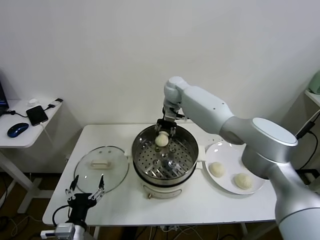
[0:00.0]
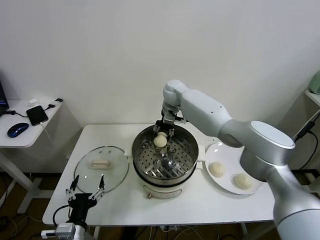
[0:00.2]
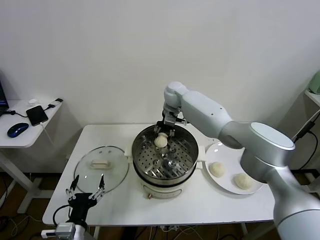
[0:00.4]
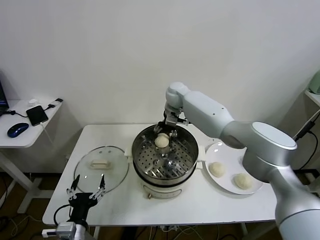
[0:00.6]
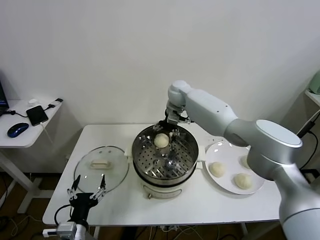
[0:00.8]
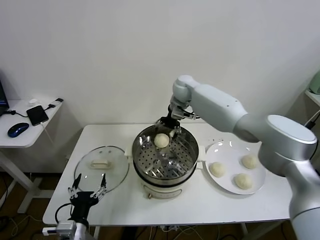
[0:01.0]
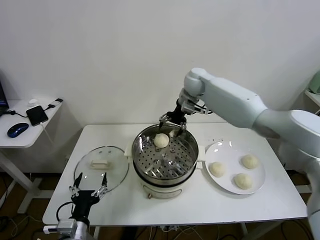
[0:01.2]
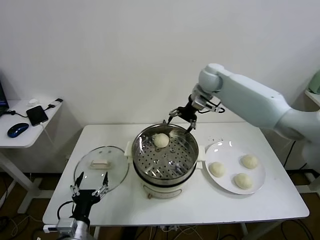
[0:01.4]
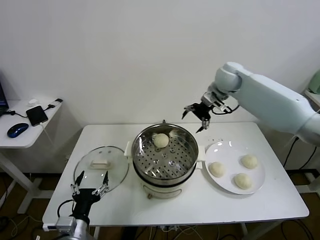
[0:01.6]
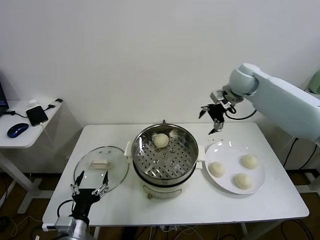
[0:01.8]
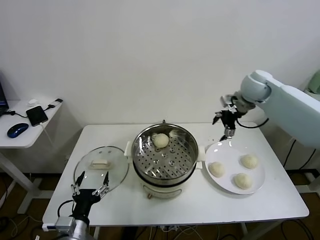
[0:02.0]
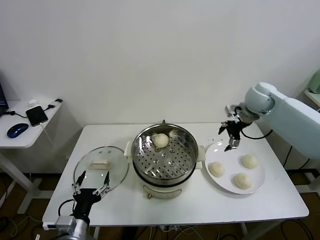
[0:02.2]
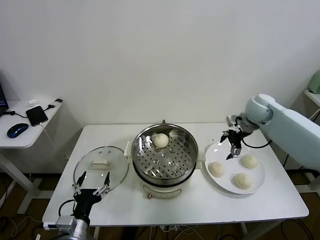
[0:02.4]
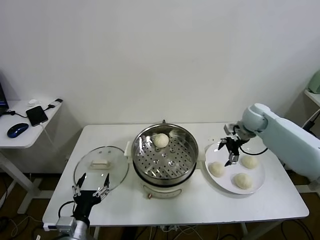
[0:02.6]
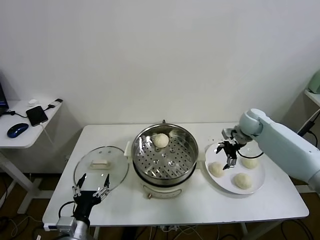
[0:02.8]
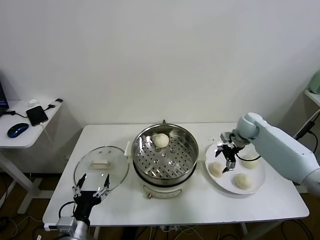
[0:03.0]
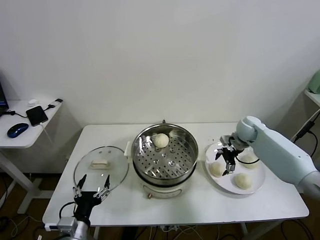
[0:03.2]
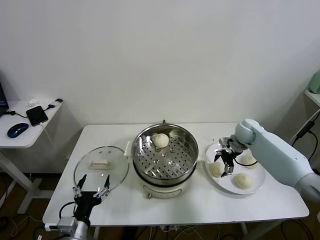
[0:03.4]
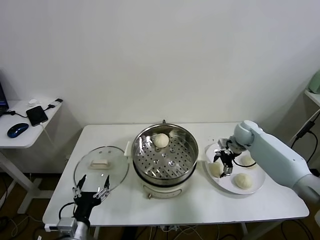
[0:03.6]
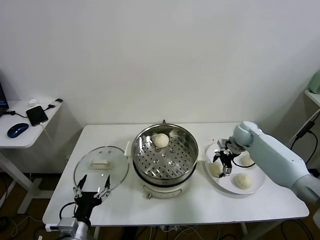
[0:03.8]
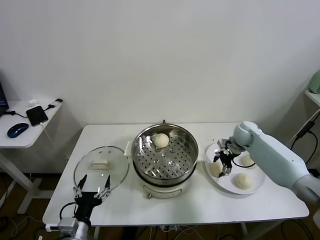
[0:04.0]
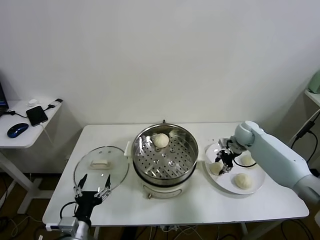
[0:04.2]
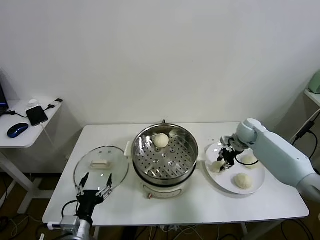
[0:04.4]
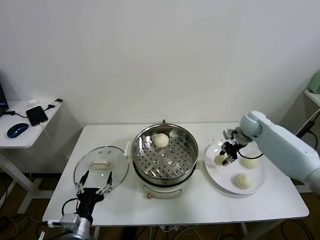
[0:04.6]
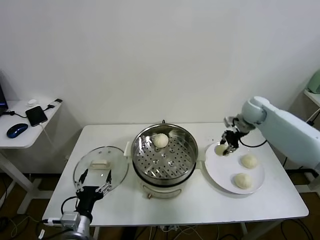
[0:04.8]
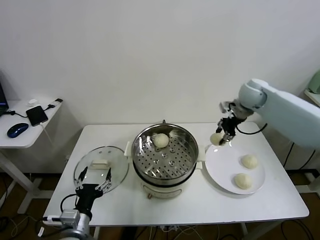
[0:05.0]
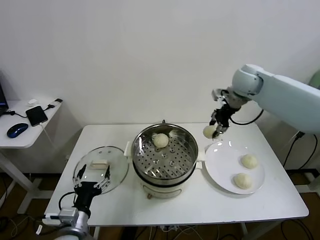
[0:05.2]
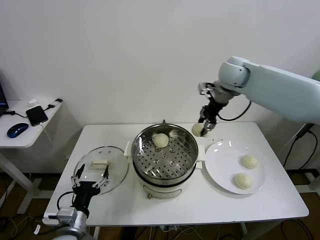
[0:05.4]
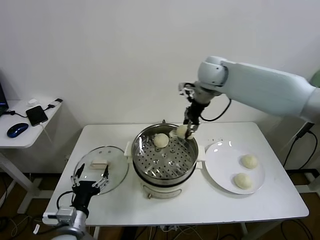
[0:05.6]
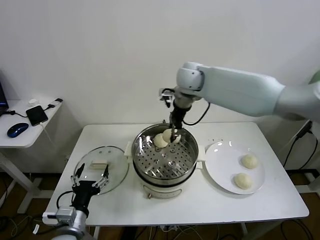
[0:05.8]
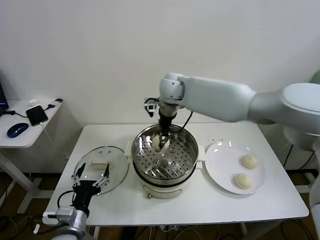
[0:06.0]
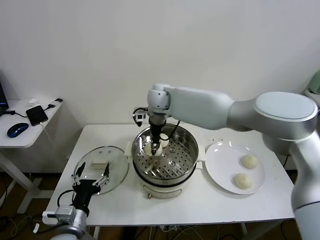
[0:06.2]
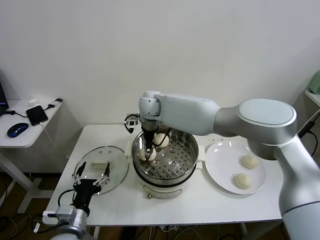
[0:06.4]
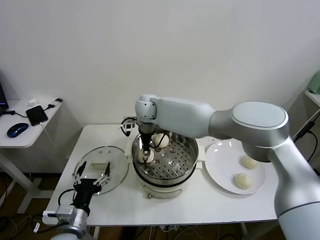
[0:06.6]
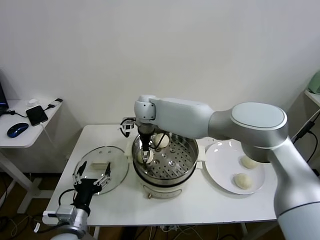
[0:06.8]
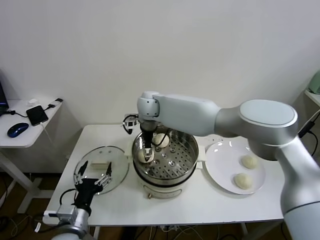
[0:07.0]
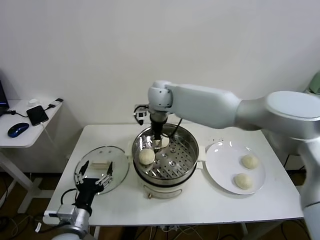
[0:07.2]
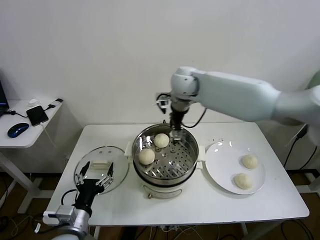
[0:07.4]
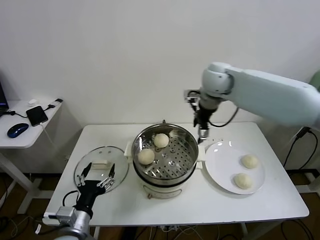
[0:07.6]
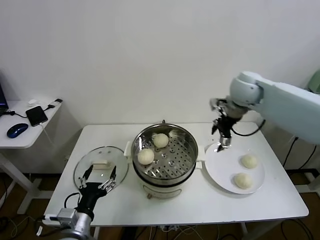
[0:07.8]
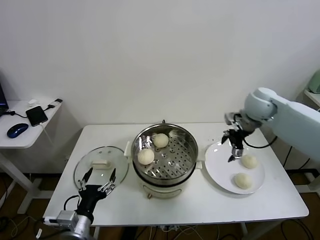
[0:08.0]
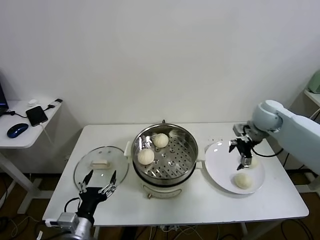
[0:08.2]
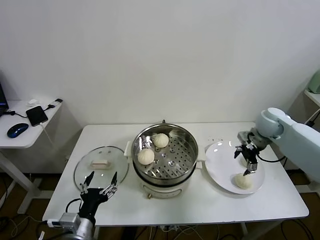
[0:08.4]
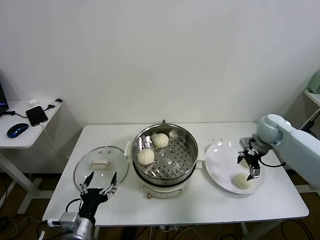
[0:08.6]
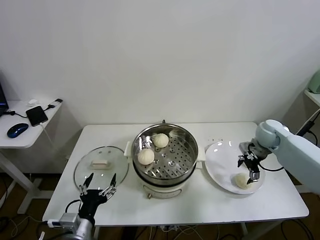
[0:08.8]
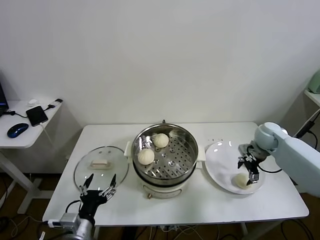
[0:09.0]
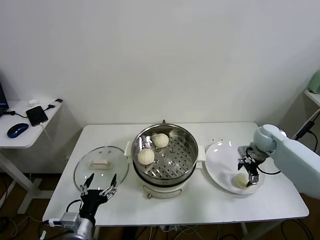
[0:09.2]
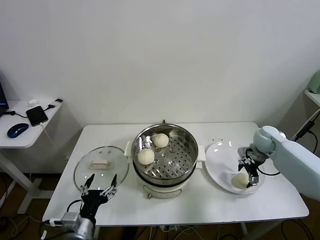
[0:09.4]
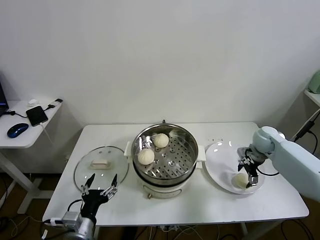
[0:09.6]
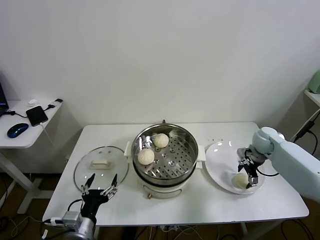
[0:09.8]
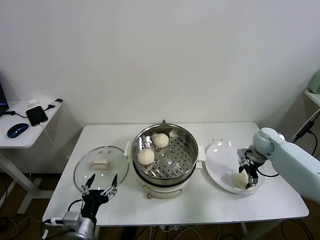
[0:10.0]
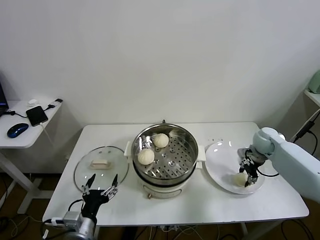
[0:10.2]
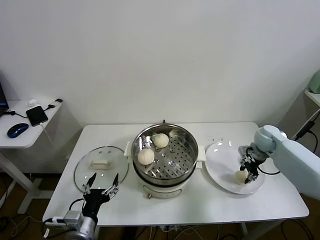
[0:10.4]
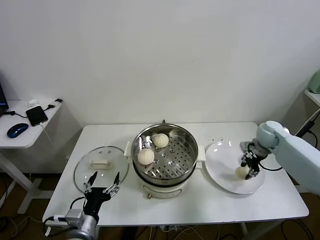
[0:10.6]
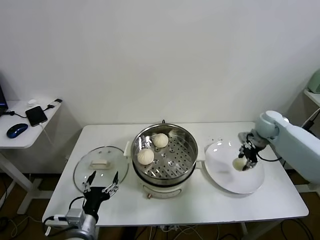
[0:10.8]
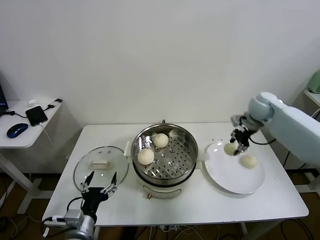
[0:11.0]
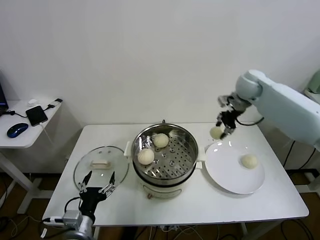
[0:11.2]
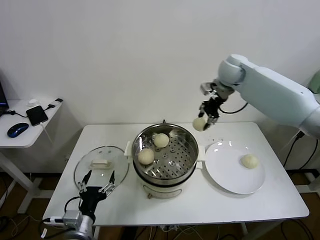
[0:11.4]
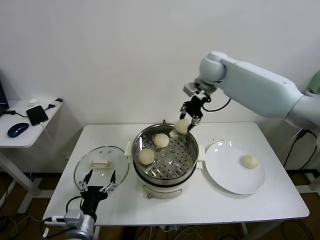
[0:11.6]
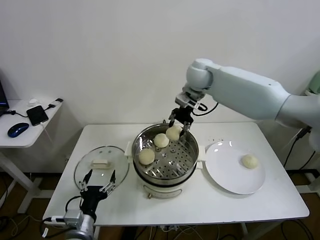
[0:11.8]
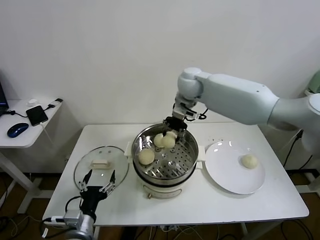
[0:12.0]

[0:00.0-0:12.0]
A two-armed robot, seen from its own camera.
Task of the whole recording: take steamed baozi put them in steamer.
Step, 0:01.0 to 0:04.0: Grasp the baozi in the plate with right gripper.
Step, 0:04.2 to 0:06.8: Place the baozi on the steamer with right gripper.
Step, 0:07.2 to 0:10.0: Grasp the baozi in the plate with right gripper.
0:00.0 to 0:01.6: The right gripper travels to the right and upward by approximately 20 cm, and opens its fingers.
0:01.6 to 0:03.0: The right gripper is displaced downward and to the right by roughly 20 cm.
0:03.0 to 0:04.4: The right gripper closes.
0:04.4 to 0:06.0: The right gripper moves to the left and upward, approximately 40 cm.
0:06.0 to 0:07.6: The right gripper moves to the right, roughly 15 cm, and opens its fingers.
0:07.6 to 0:09.0: The right gripper moves downward and to the right, roughly 30 cm.
0:09.0 to 0:10.4: The right gripper closes up.
0:10.4 to 0:12.0: The right gripper moves to the left and upward, roughly 35 cm.

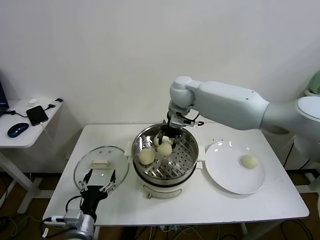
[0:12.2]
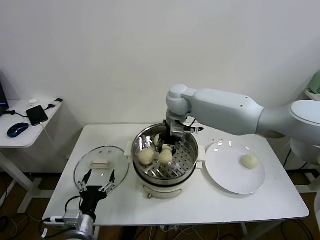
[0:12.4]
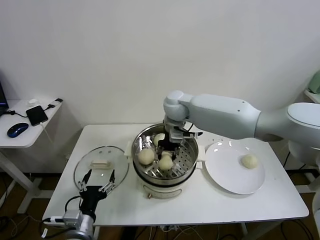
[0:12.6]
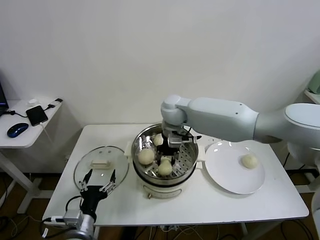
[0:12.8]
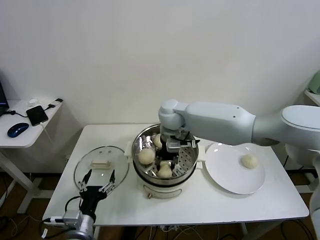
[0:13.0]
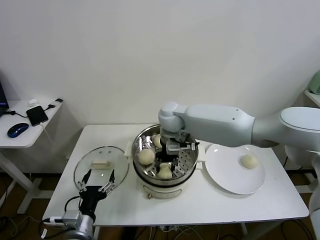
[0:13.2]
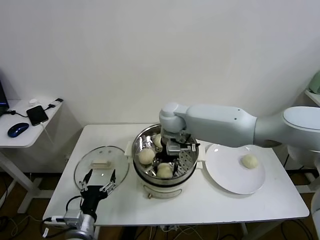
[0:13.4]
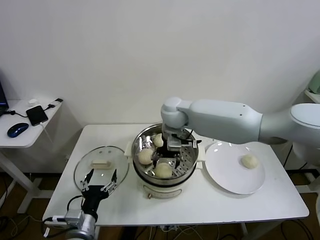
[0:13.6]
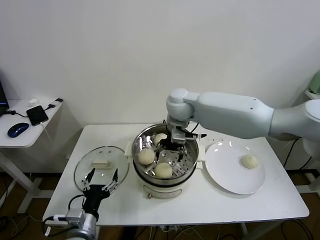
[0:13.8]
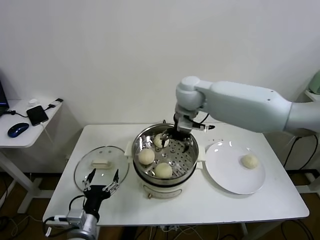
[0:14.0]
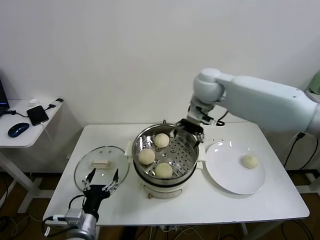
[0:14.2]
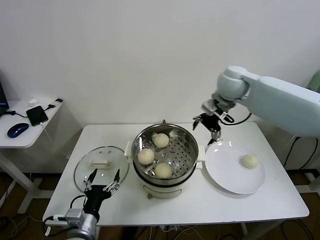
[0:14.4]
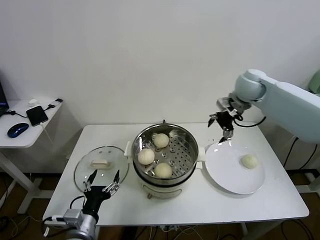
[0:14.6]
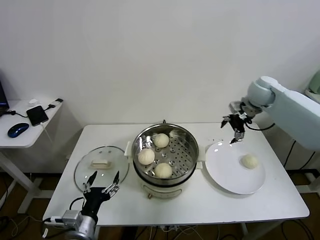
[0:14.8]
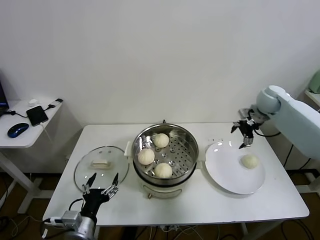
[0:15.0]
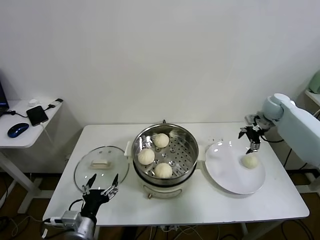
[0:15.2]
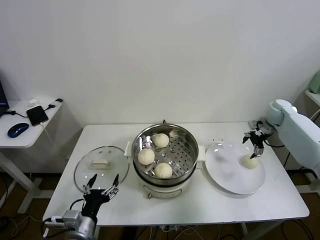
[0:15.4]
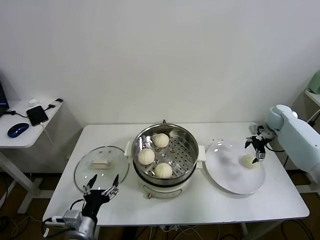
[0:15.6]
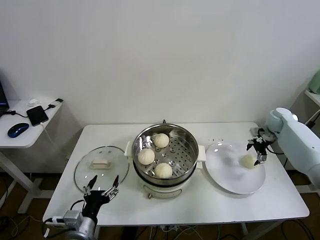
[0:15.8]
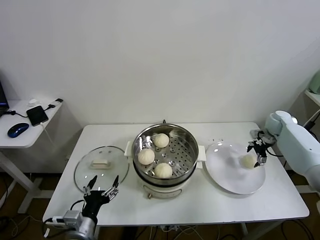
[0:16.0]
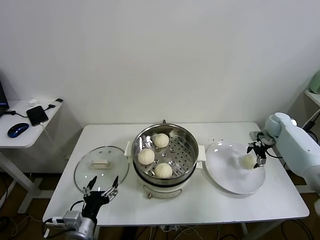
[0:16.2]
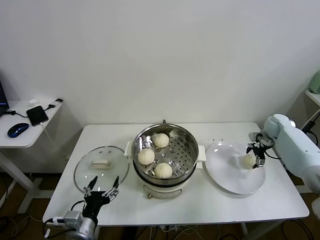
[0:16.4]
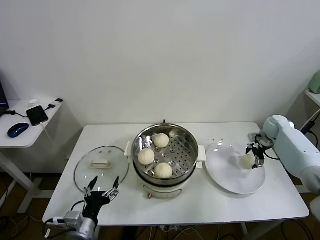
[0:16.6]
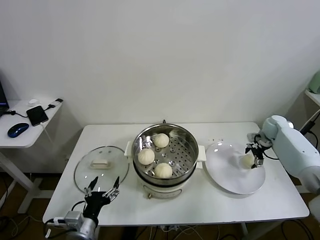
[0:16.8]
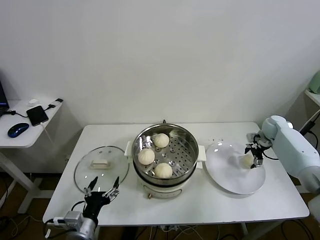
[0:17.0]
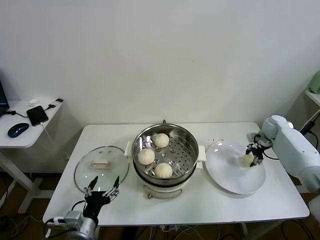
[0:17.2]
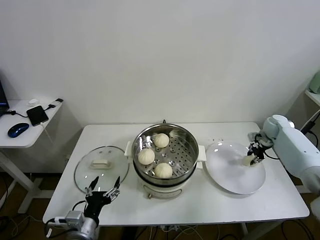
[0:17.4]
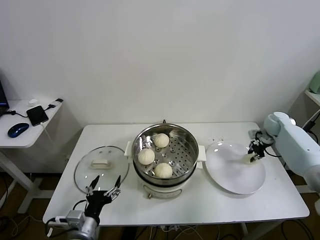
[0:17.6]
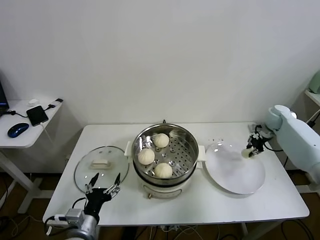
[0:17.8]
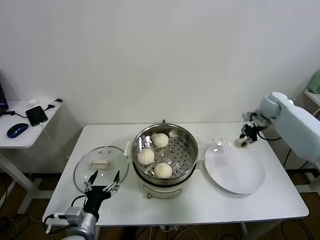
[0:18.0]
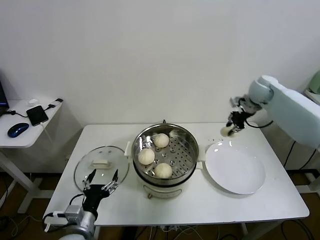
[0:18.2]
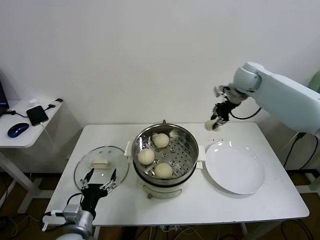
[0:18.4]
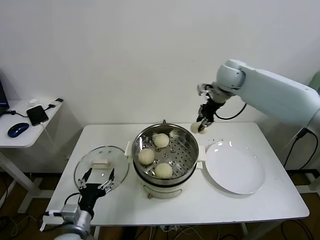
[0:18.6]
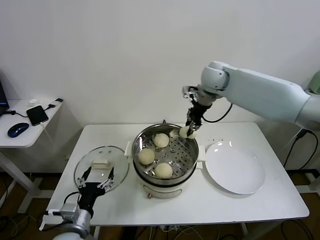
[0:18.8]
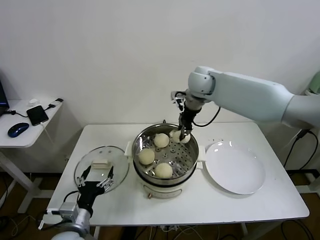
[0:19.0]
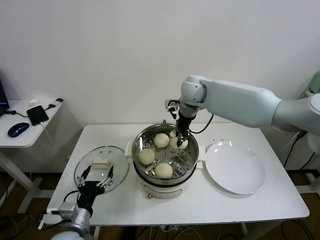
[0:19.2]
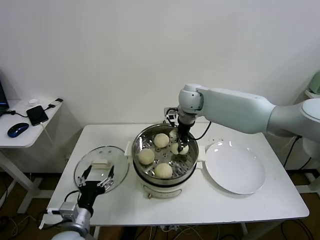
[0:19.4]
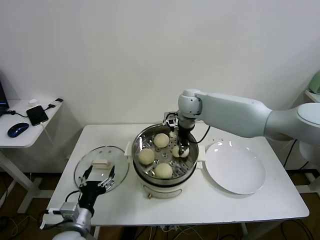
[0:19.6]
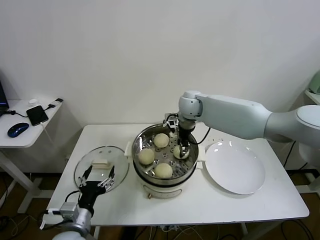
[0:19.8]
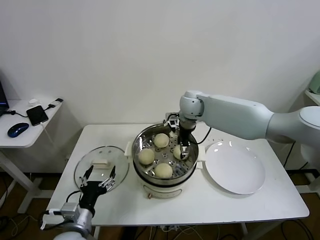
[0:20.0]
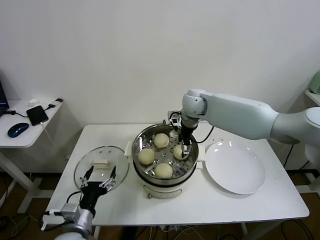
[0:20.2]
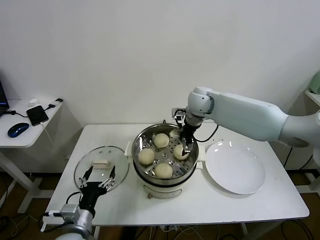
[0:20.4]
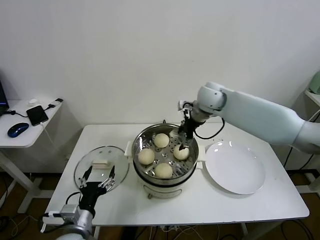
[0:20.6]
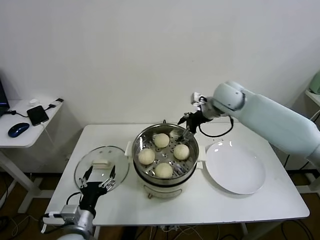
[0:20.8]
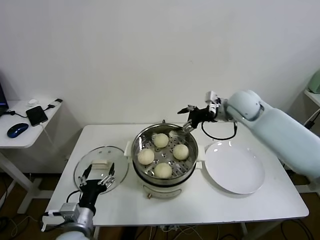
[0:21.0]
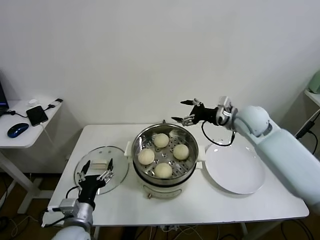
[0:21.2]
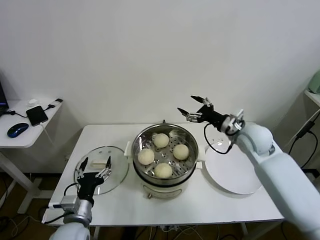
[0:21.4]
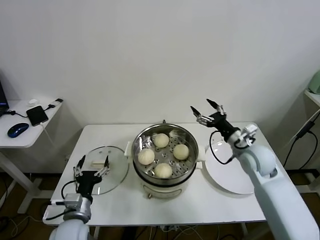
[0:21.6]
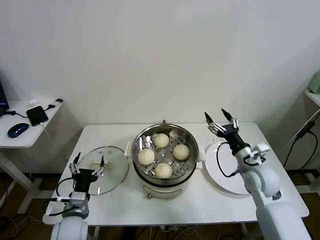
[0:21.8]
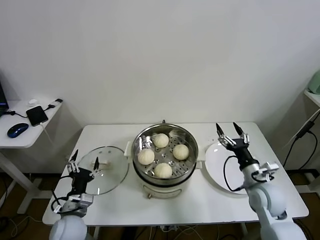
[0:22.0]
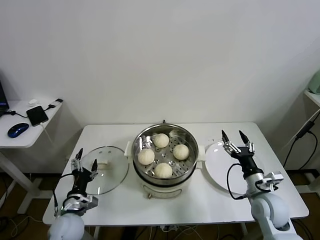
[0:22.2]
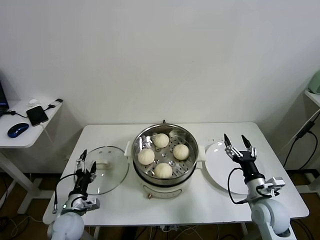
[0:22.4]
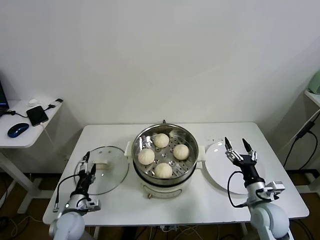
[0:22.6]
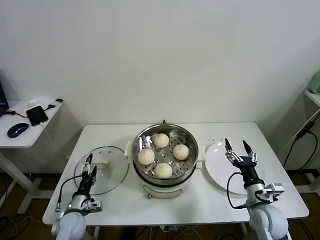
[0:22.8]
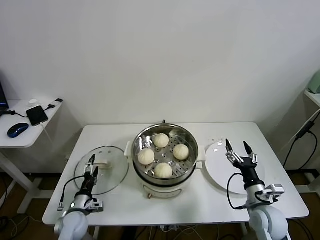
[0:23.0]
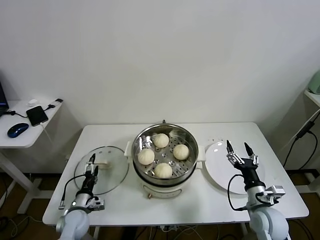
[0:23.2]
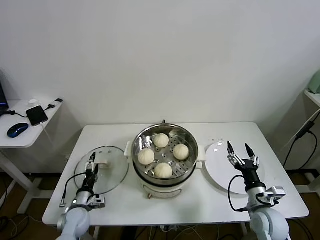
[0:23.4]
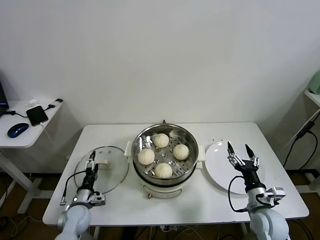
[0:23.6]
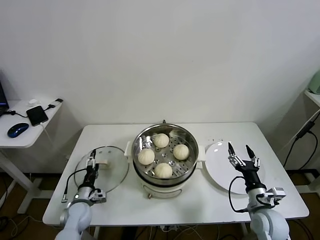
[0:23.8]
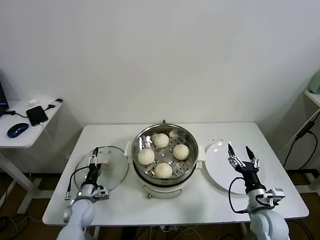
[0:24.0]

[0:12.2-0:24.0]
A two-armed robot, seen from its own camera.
Task of the whole recording: take steamed baozi put them in steamer.
Step, 0:13.8 to 0:17.2: Grasp the baozi in the plate with right gripper.
Step, 0:17.4 to 0:20.0: Place the baozi on the steamer with right gripper.
0:12.2 to 0:13.6: The right gripper changes place by roughly 5 cm, and opens up.
0:13.6 to 0:15.2: The right gripper moves to the right, approximately 40 cm.
0:15.2 to 0:16.6: The right gripper is displaced downward by approximately 10 cm.
0:16.6 to 0:18.2: The right gripper heads upward and to the left, covering approximately 20 cm, and closes its fingers.
0:18.2 to 0:19.6: The right gripper is displaced to the left by some 25 cm.
0:19.6 to 0:21.0: The right gripper is displaced to the right by some 15 cm, and opens.
0:21.0 to 0:22.6: The left gripper shifts some 15 cm downward, forward and to the left. Meanwhile the right gripper shifts roughly 35 cm backward and downward.
0:22.6 to 0:24.0: The left gripper travels forward by approximately 5 cm.
